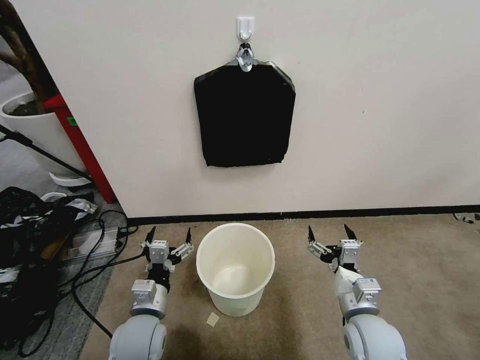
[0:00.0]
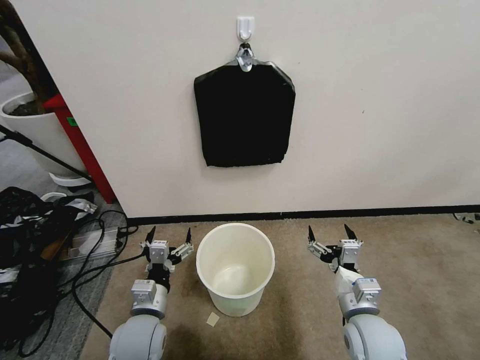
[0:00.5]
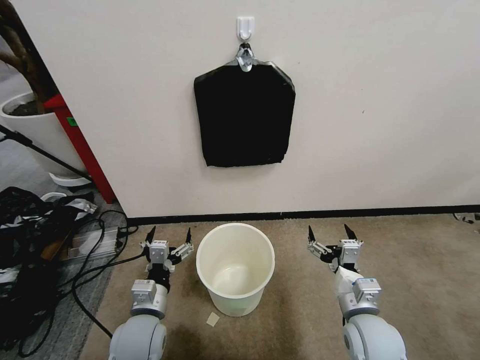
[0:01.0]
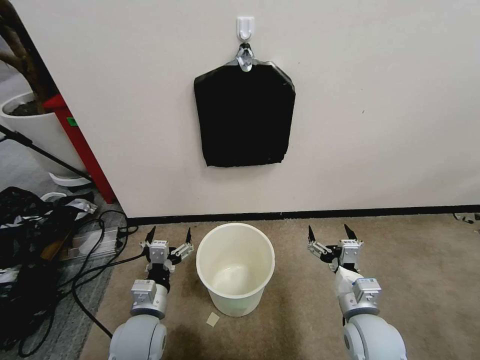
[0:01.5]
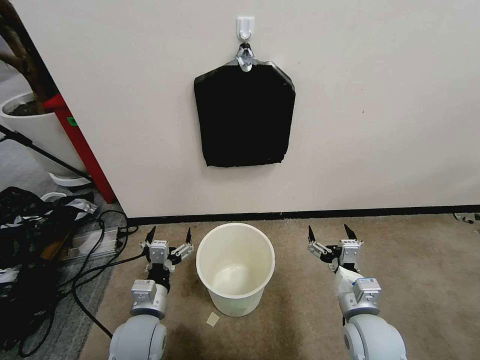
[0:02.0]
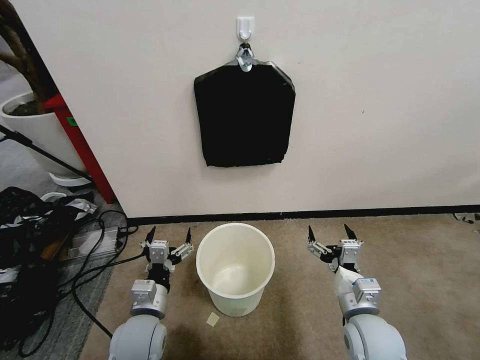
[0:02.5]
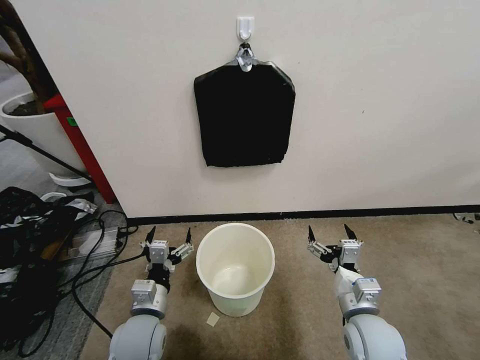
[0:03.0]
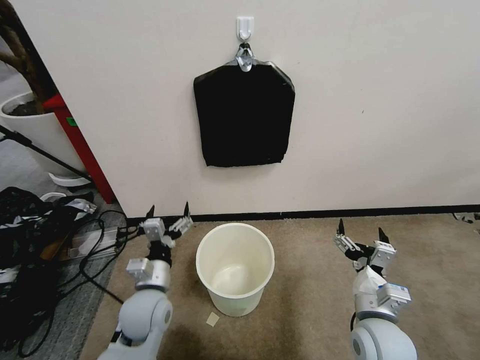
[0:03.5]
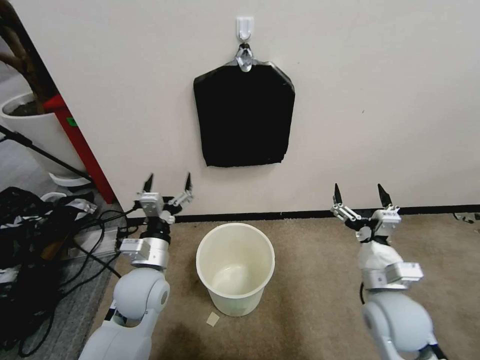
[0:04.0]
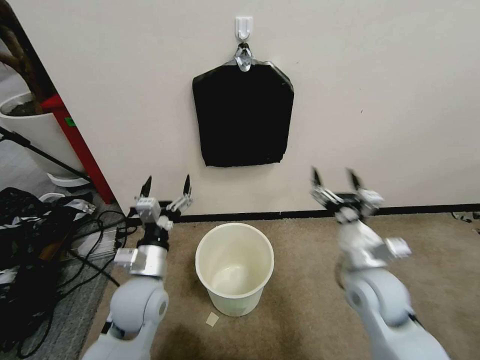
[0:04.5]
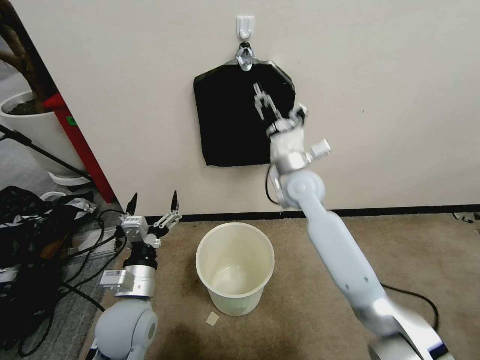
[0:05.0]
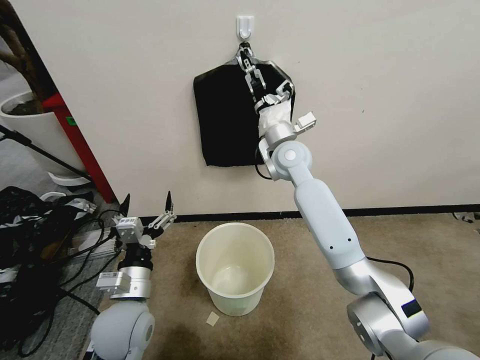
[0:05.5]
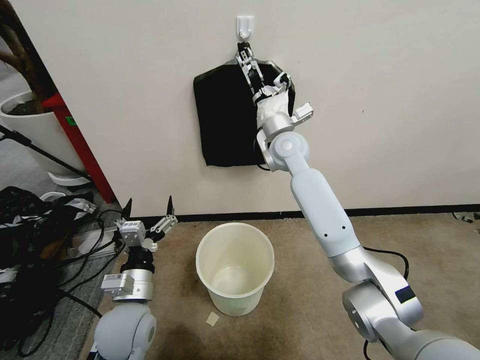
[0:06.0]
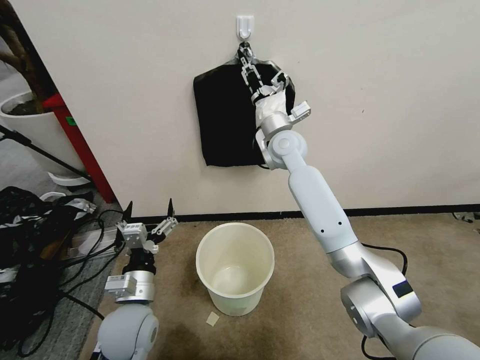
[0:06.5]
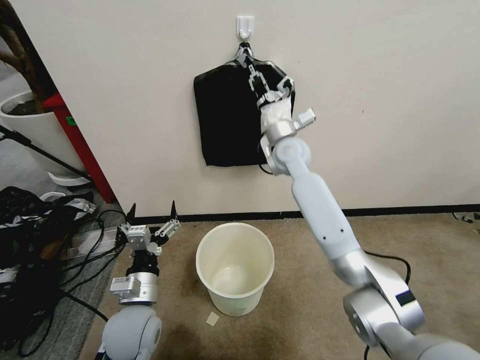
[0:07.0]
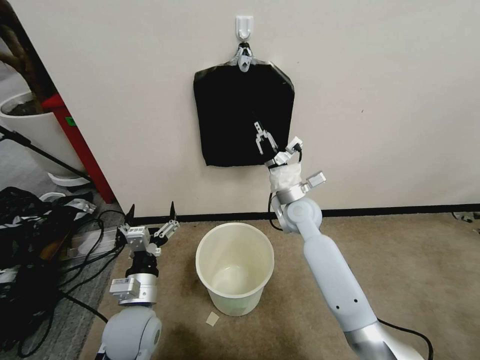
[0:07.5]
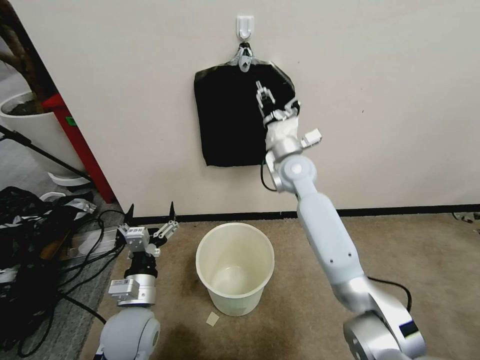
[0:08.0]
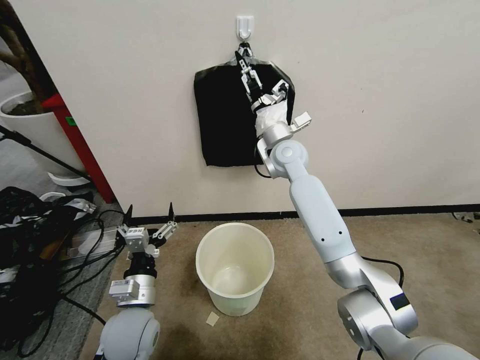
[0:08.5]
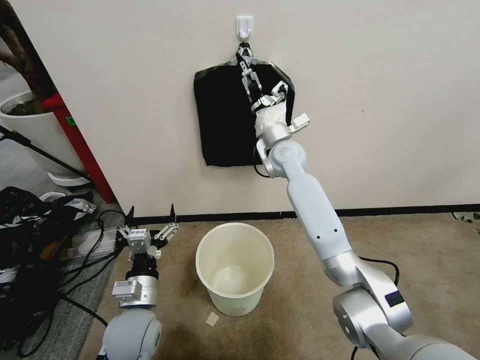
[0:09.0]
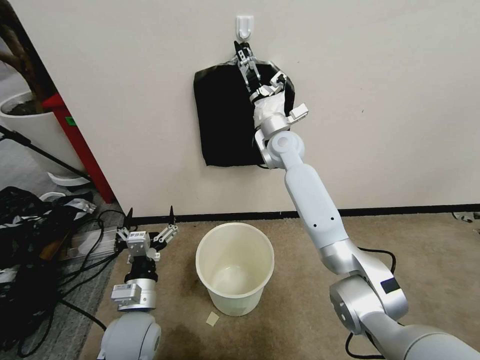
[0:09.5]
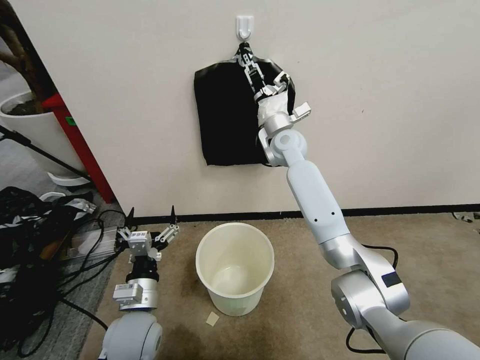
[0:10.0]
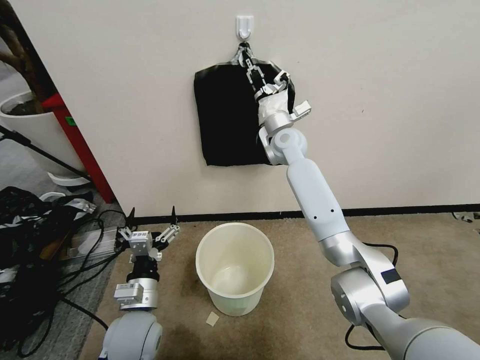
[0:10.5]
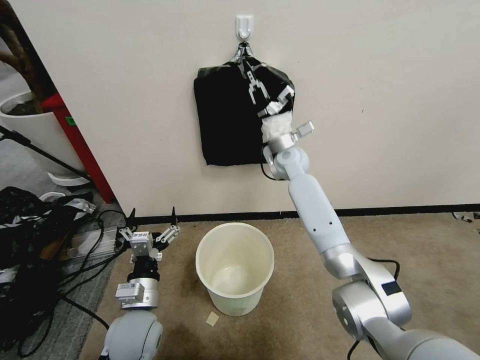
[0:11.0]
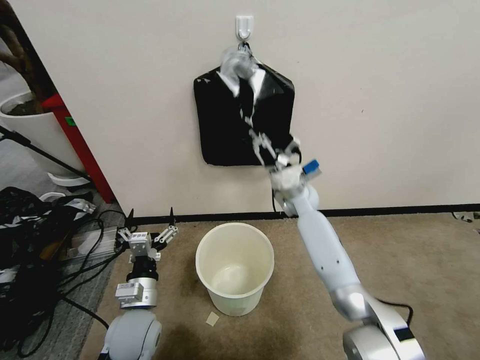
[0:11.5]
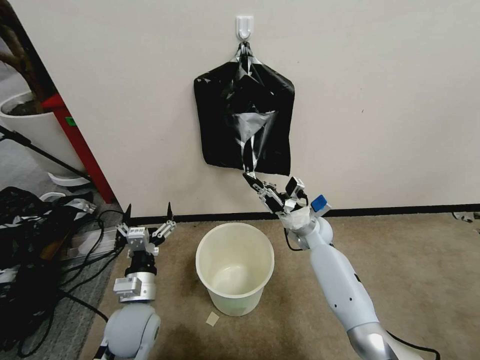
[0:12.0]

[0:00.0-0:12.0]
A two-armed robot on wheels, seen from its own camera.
Task of the whole recording: Place a trash bag onto the trash bin.
0:02.0 to 0:04.0: The right gripper shifts approximately 5 cm upward, while the left gripper goes approximately 10 cm forward and upward.
0:04.0 to 0:06.0: The right gripper heads forward, to the left and upward, covering approximately 40 cm, while the left gripper goes roughly 5 cm backward.
0:06.0 to 0:08.0: The right gripper is displaced downward by some 5 cm, and closes its fingers.
0:08.0 to 0:10.0: The right gripper shifts about 10 cm forward, and opens, then closes again.
0:10.0 to 0:12.0: The right gripper shifts approximately 25 cm downward, backward and to the right, and closes up.

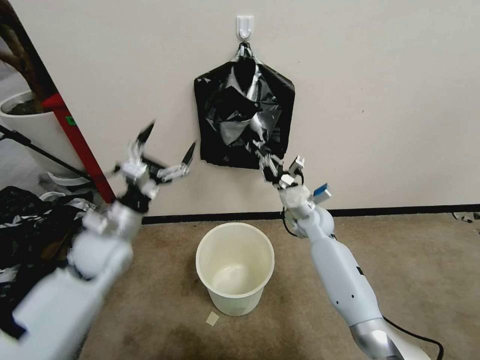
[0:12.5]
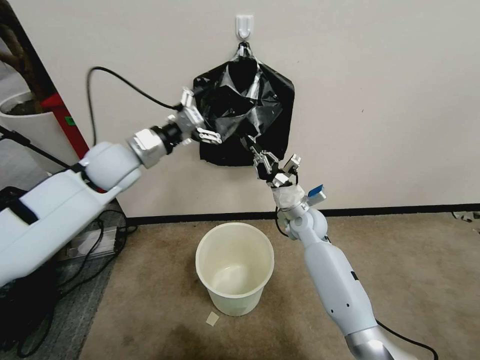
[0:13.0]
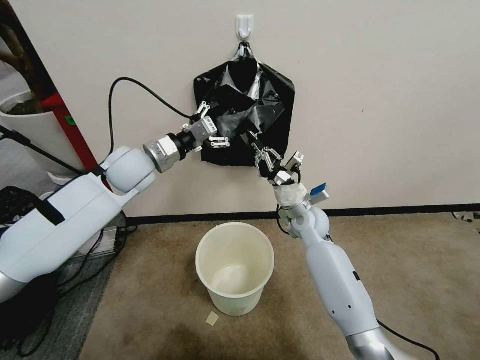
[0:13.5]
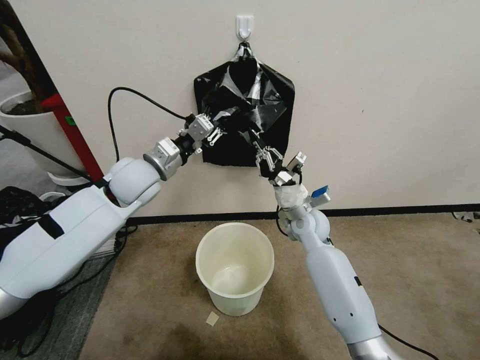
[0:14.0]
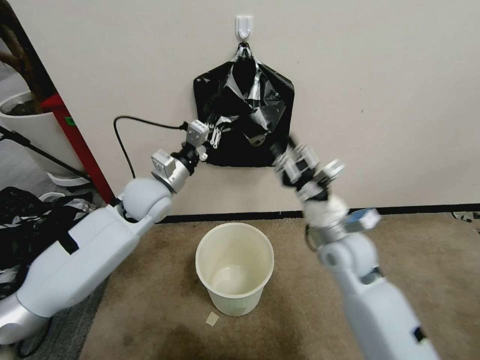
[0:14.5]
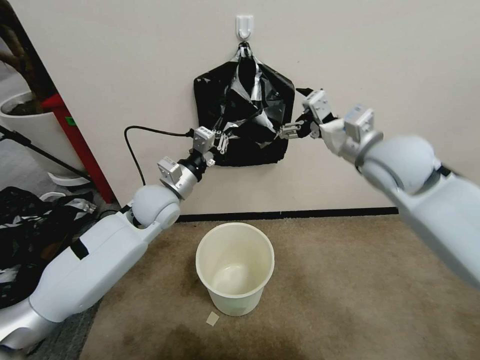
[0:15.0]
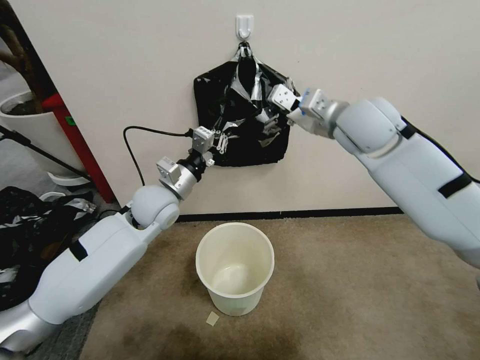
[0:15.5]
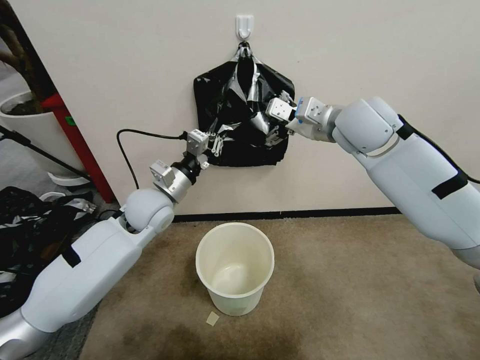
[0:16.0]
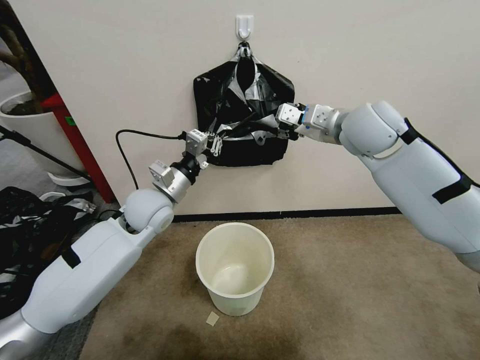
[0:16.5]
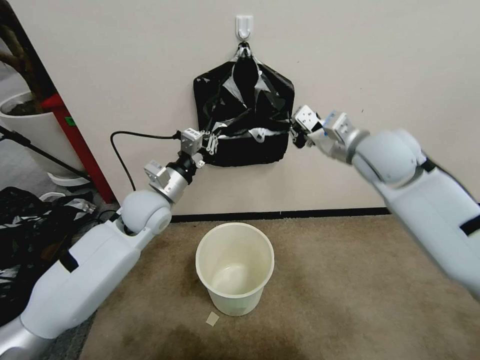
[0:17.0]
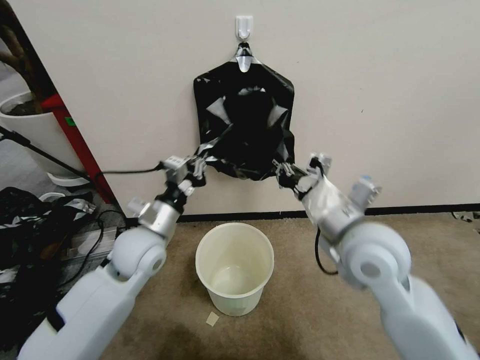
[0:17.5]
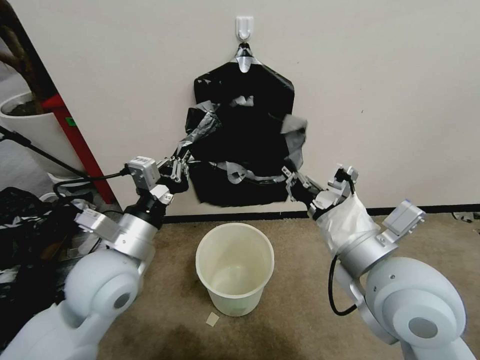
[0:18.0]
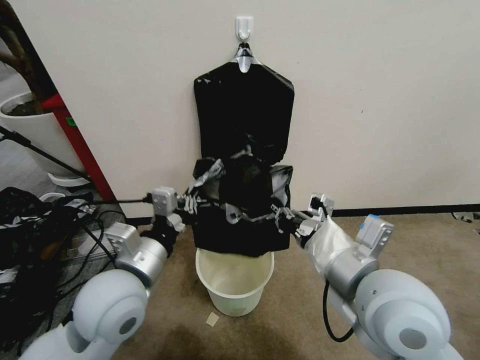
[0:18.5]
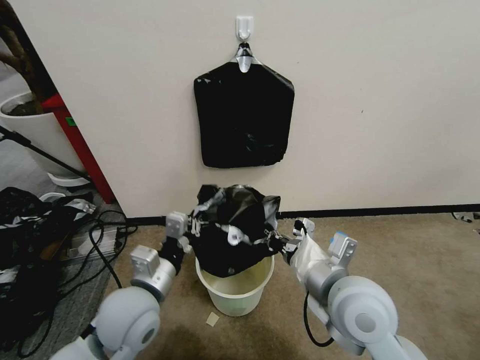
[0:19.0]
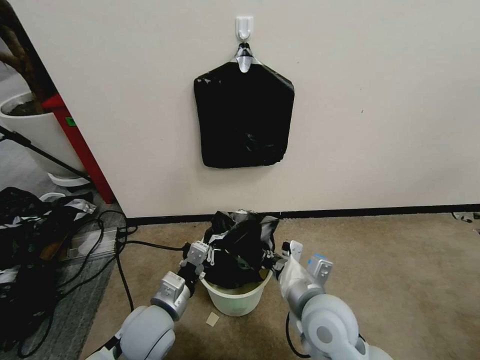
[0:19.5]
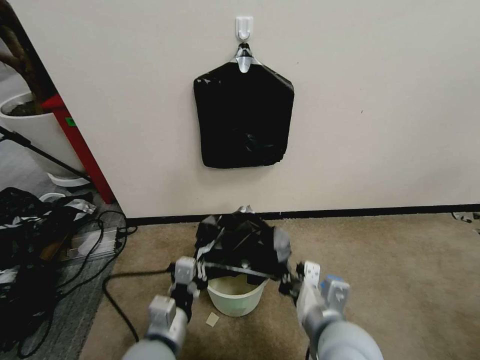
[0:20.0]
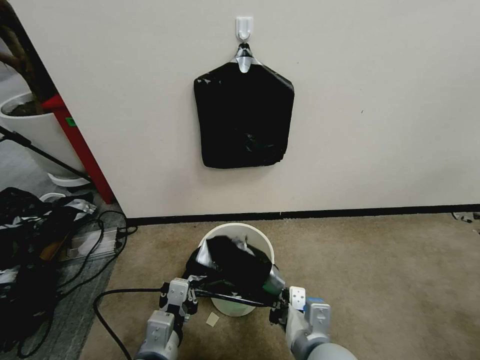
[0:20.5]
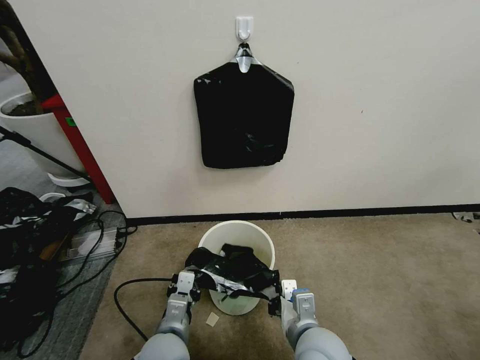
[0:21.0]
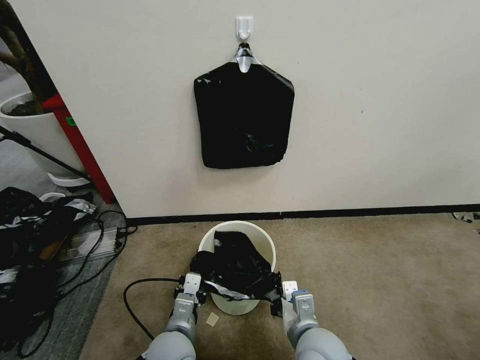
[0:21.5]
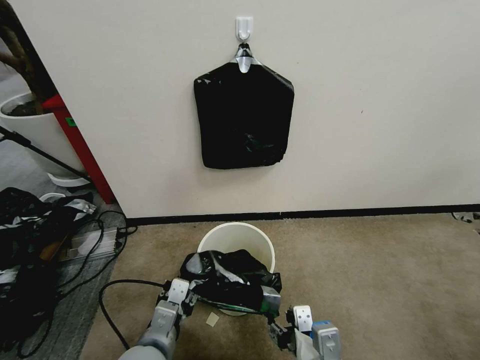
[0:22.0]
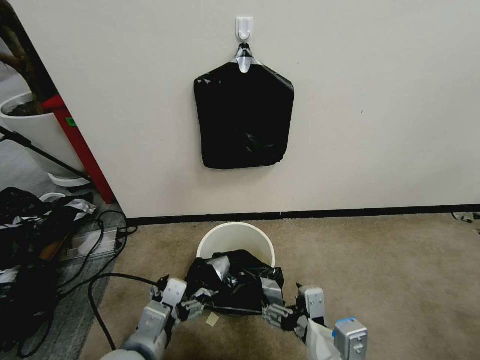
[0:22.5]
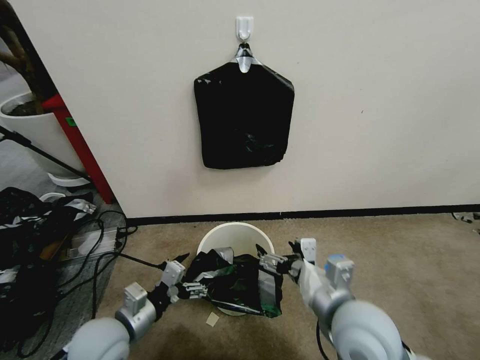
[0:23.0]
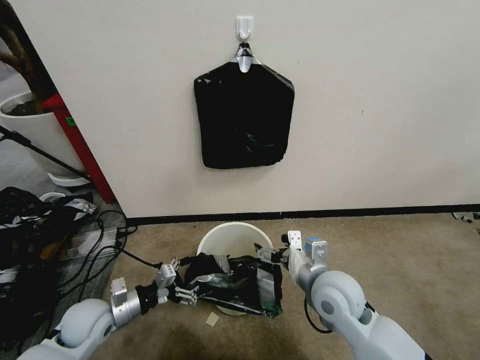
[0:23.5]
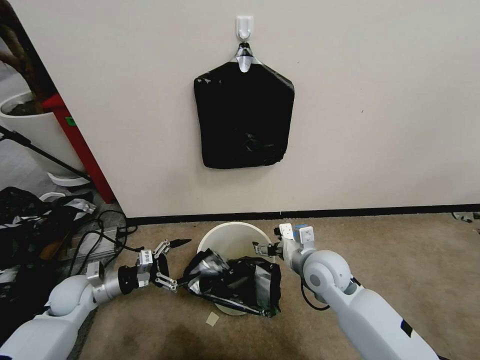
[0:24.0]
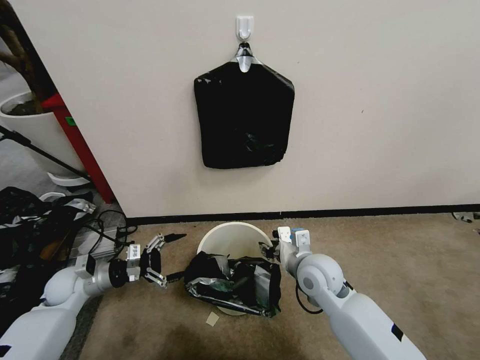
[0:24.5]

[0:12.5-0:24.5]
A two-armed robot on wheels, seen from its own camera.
Task of the whole recording: Place a trash bag onto the trash bin.
0:12.5 to 0:14.5: The left gripper goes approximately 10 cm forward and to the right, and closes up. The right gripper goes approximately 20 cm backward and upward, and opens its fingers.
0:14.5 to 0:16.5: The right gripper shifts about 25 cm upward and forward, and opens and closes again.
0:16.5 to 0:18.5: Both grippers travel together backward, some 25 cm. The right gripper closes.
0:18.5 to 0:20.5: The left gripper goes roughly 15 cm downward and backward, while the right gripper shifts roughly 15 cm downward.
0:20.5 to 0:22.5: The left gripper opens; the right gripper moves upward and backward, some 10 cm, and opens its fingers.
0:22.5 to 0:24.5: The right gripper travels forward by approximately 25 cm, and closes its fingers. Meanwhile the left gripper goes approximately 30 cm to the left, forward and downward.

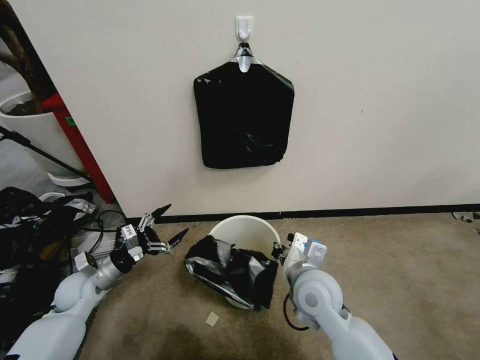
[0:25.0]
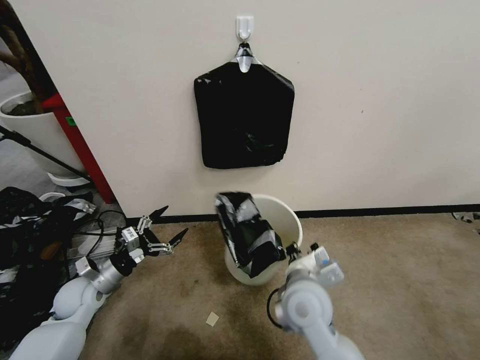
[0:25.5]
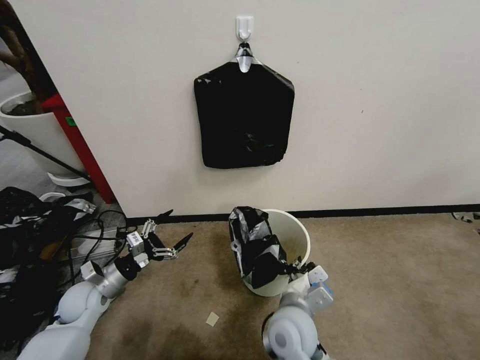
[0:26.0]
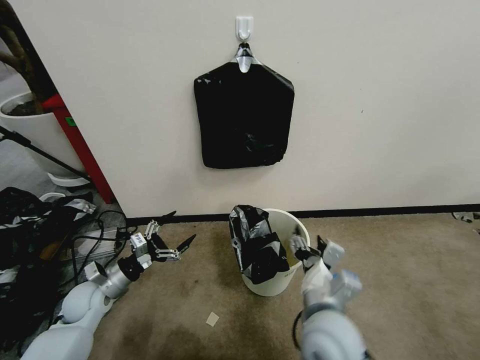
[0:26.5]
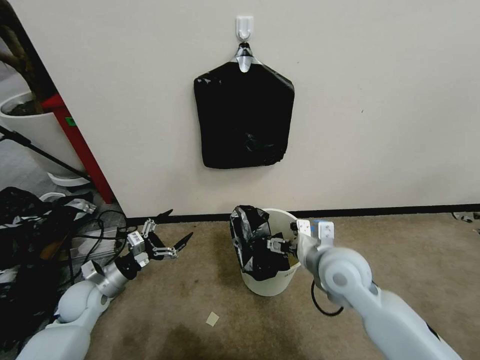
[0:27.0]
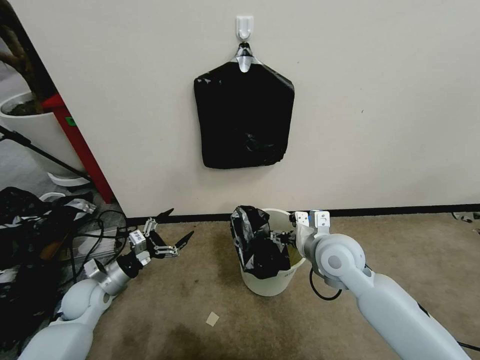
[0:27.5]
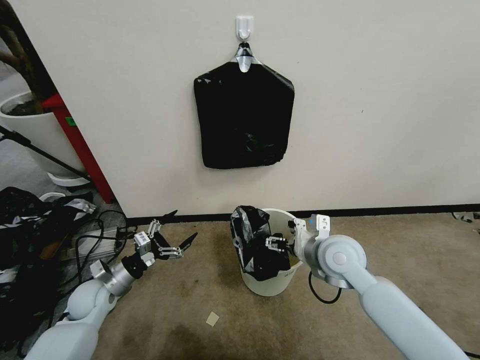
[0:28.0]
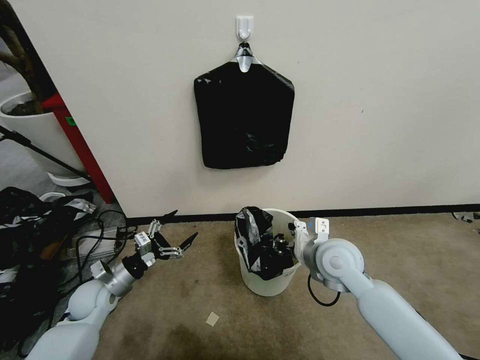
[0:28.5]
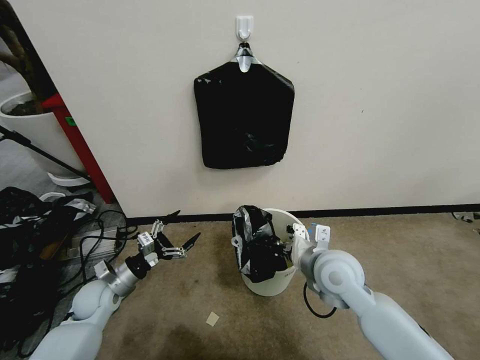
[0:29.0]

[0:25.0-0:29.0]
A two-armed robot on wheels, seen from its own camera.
Task of the whole recording: Place a trash bag onto the trash bin.
0:25.0 to 0:27.0: The right gripper heads upward, covering approximately 5 cm, moves approximately 10 cm backward and comes back, and opens its fingers.
0:27.0 to 0:29.0: The right gripper closes up.
